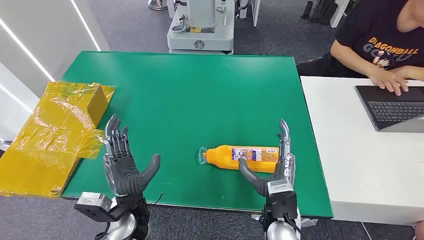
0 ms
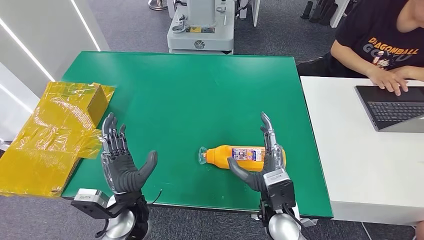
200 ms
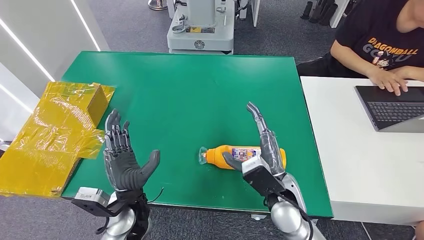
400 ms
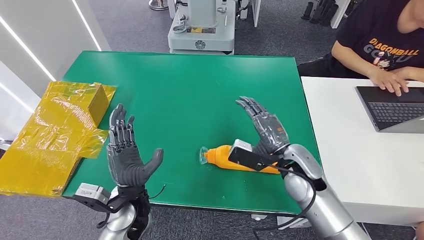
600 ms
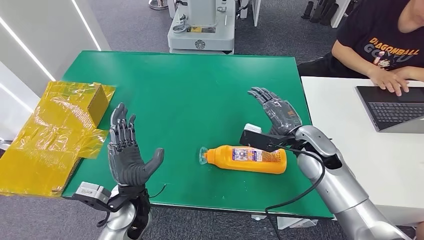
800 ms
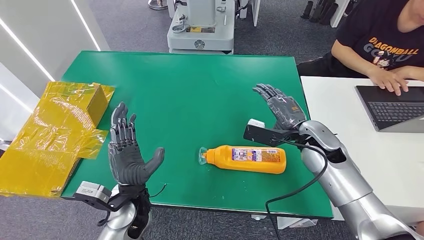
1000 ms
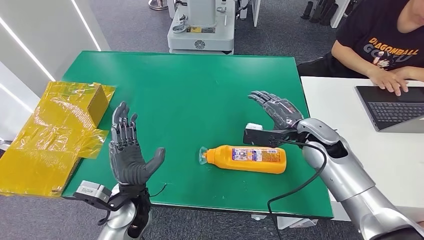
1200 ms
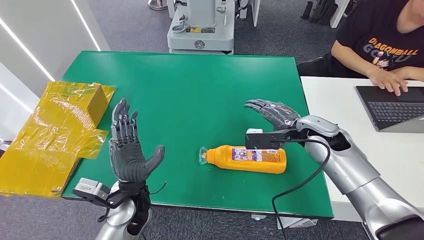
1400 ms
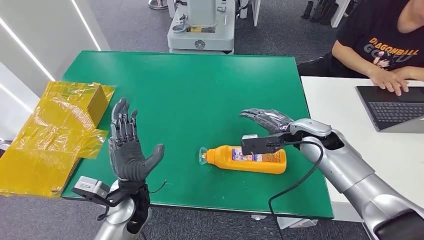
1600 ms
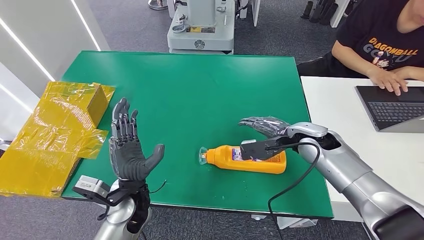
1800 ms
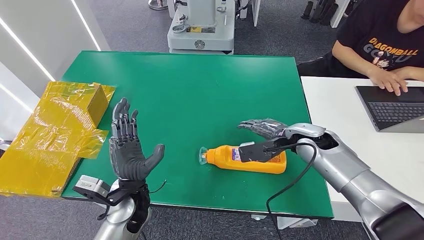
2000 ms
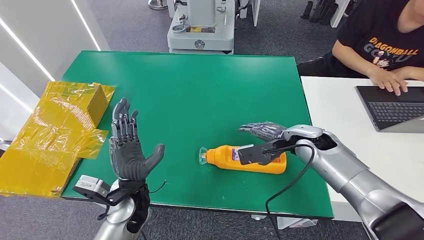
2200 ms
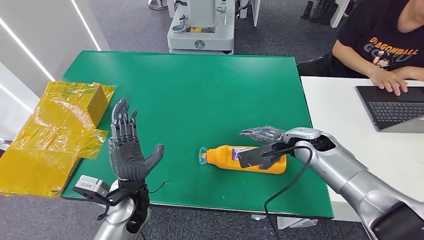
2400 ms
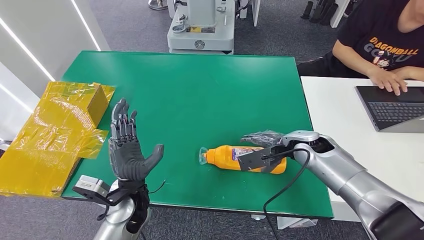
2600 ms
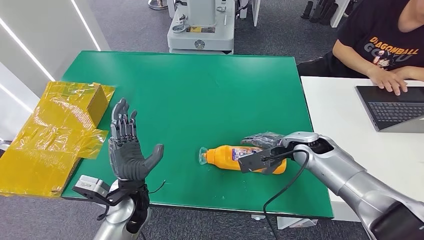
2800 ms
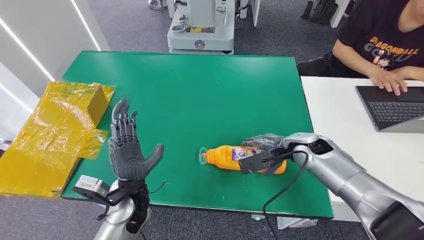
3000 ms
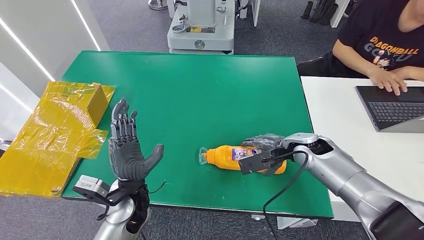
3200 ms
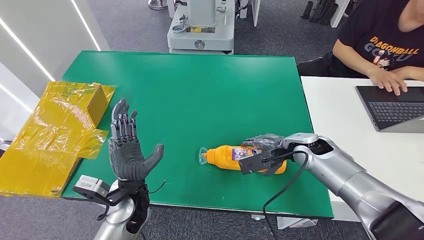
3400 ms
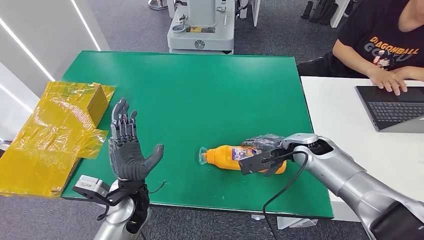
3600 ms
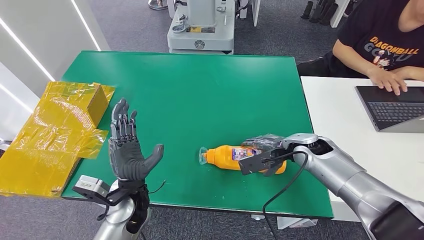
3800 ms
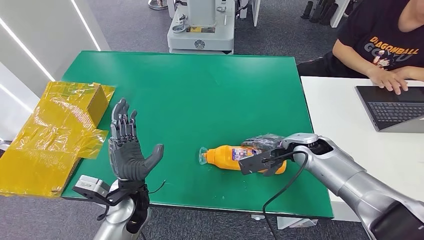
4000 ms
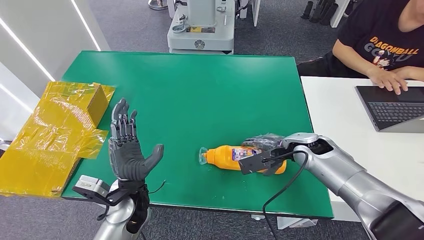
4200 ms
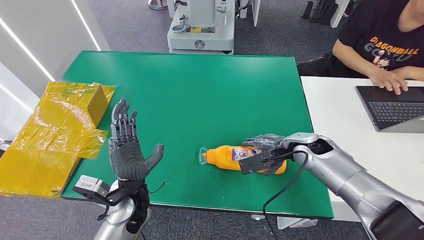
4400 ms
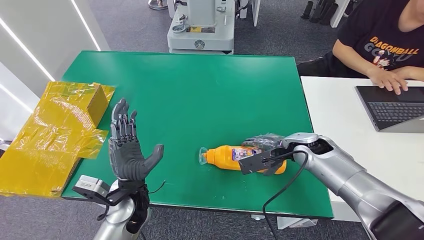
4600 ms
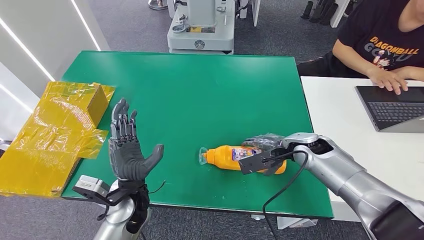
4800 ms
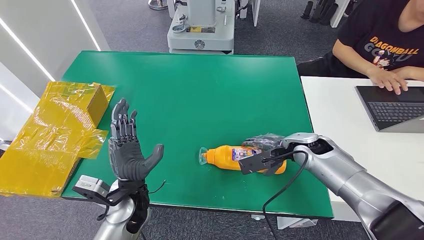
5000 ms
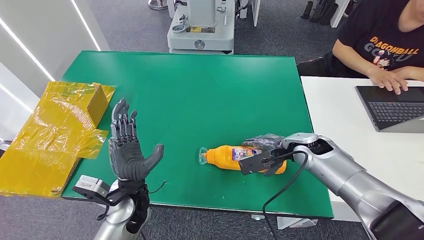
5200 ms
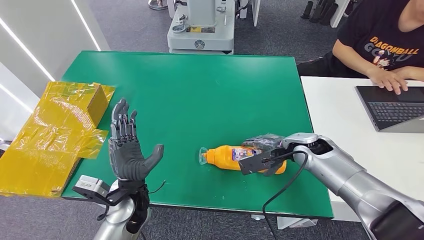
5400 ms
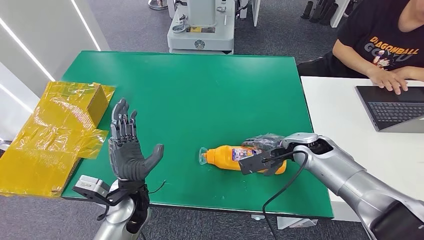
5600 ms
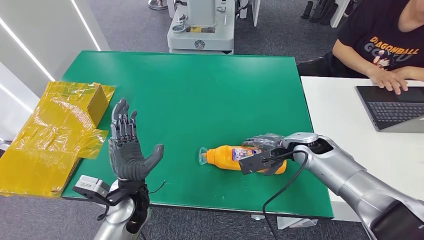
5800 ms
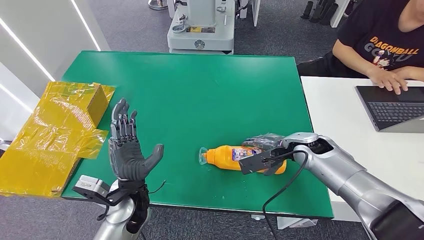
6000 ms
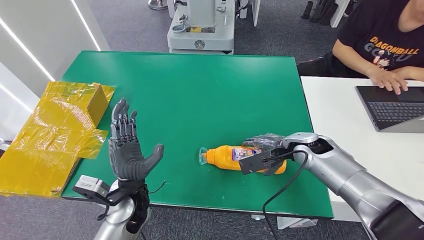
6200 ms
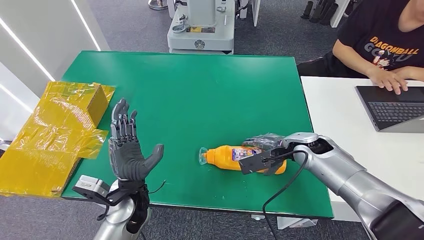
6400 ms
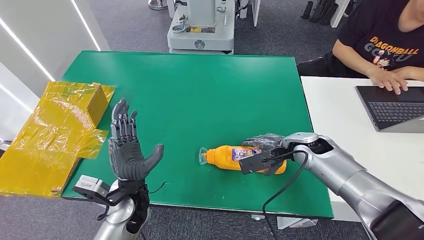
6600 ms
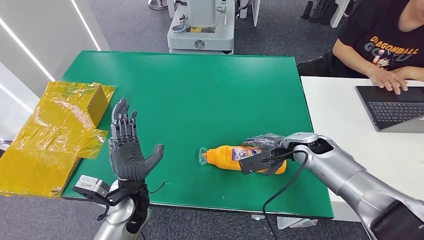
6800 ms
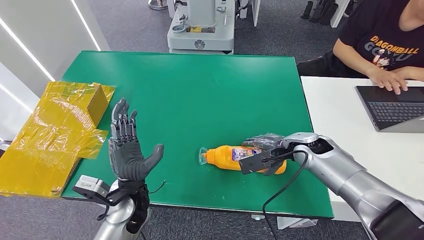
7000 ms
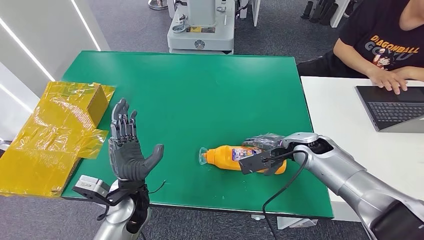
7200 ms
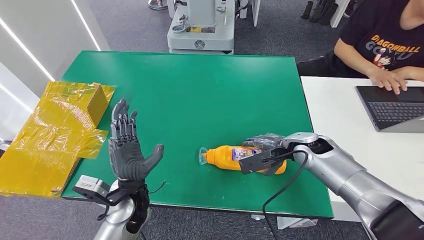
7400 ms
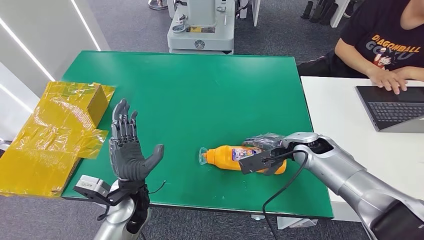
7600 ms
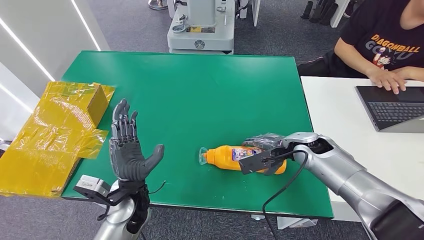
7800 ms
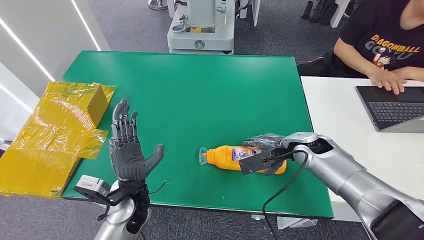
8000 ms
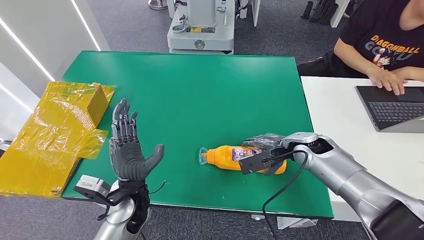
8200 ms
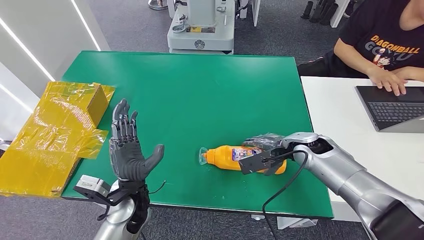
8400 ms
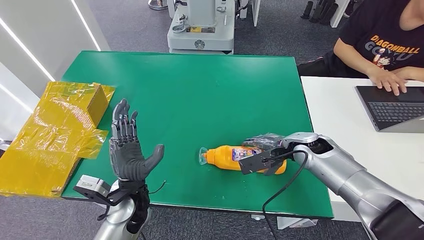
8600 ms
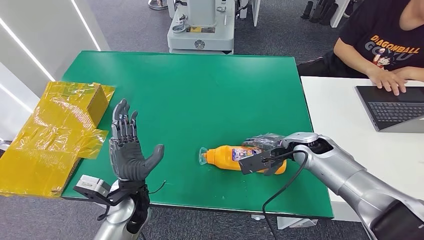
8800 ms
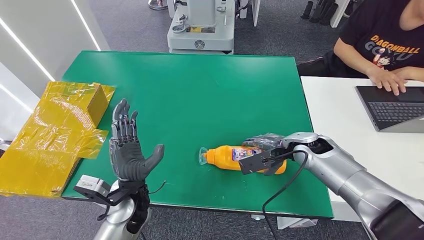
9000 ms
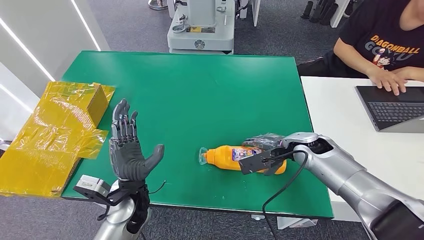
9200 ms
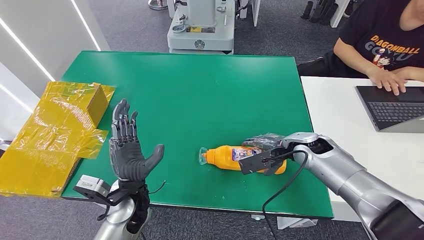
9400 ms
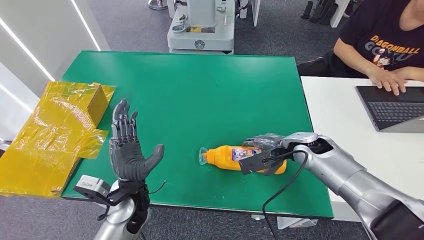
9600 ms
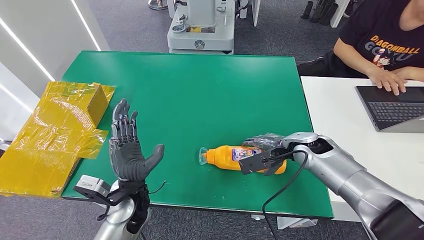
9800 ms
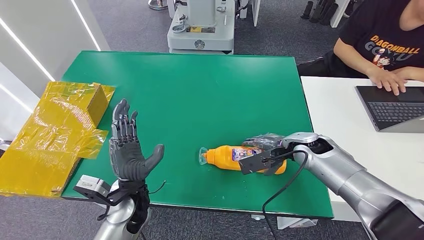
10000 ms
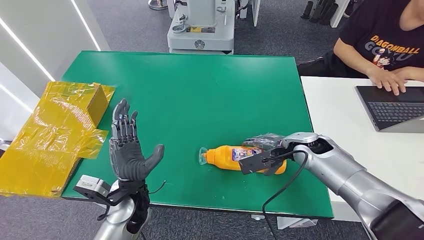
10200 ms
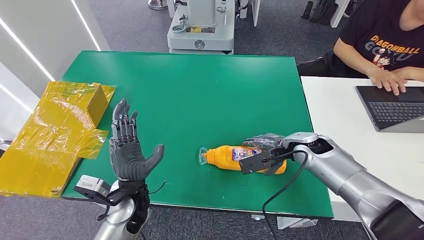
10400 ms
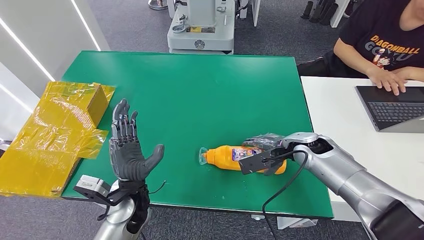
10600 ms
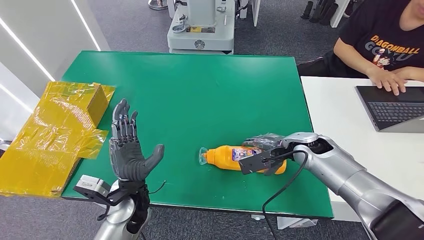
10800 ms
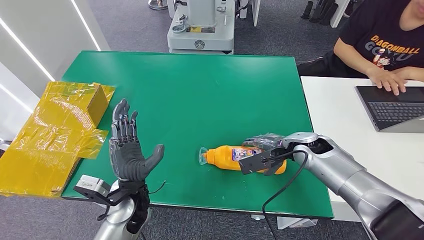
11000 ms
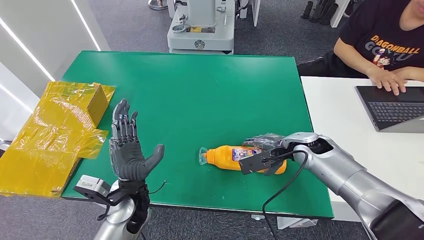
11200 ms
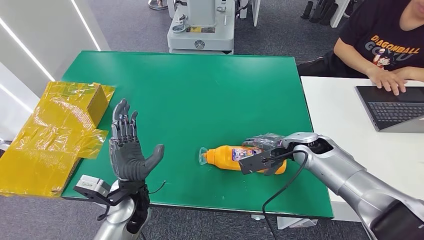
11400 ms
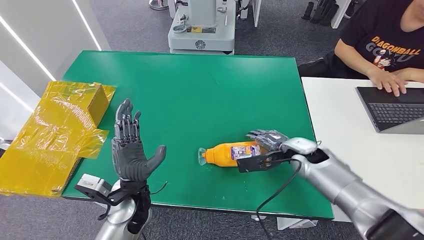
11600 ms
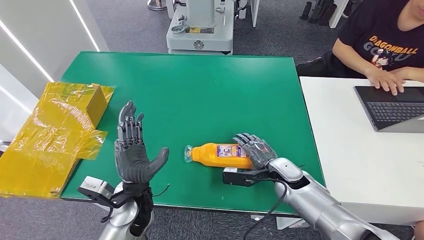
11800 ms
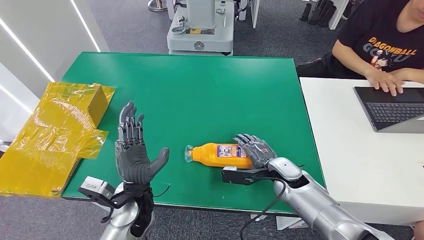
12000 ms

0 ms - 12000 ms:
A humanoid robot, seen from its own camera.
1600 ms - 3000 ms: The hands stay close to where they were, moving slightly.
3000 ms - 10400 ms: Both hands stay put.
10400 ms - 12000 ms: The right hand travels downward and backward by approximately 10 cm.

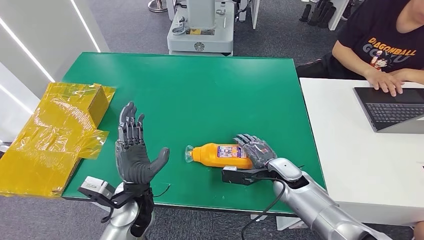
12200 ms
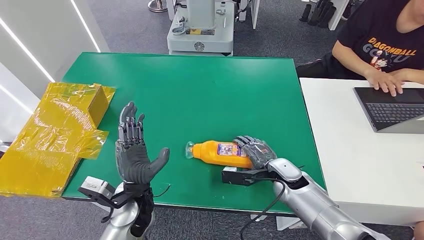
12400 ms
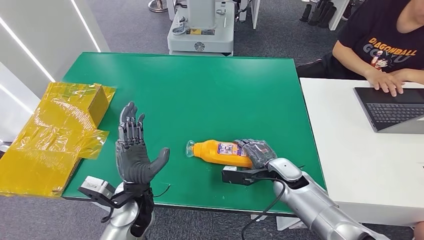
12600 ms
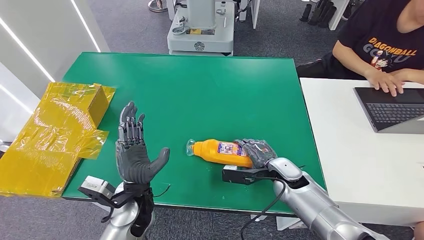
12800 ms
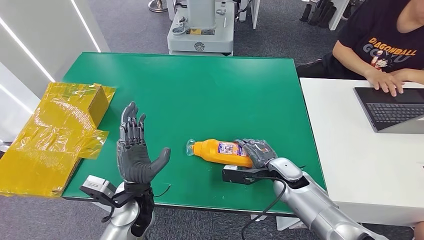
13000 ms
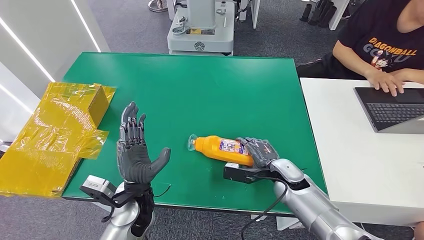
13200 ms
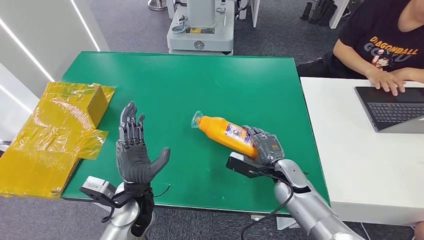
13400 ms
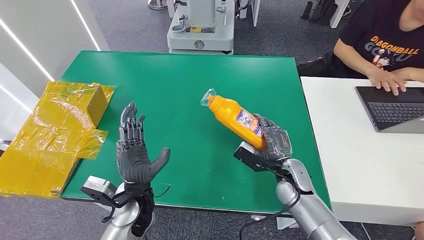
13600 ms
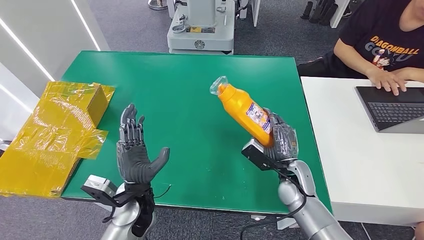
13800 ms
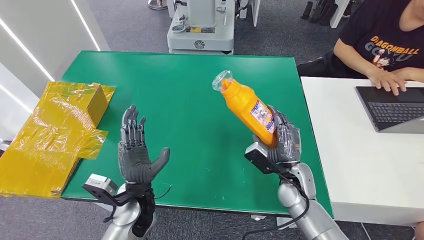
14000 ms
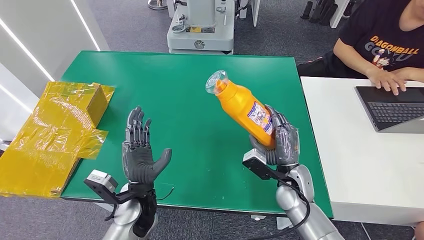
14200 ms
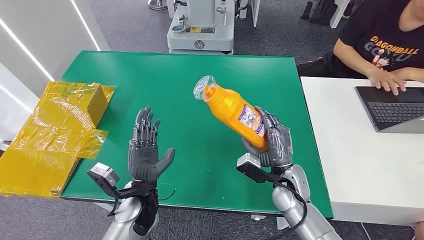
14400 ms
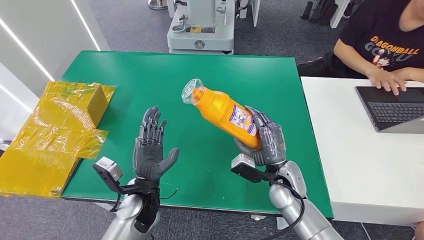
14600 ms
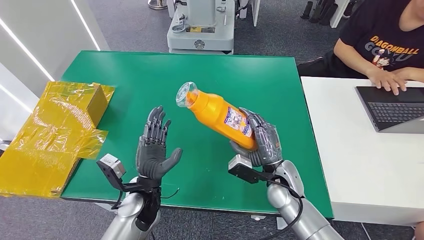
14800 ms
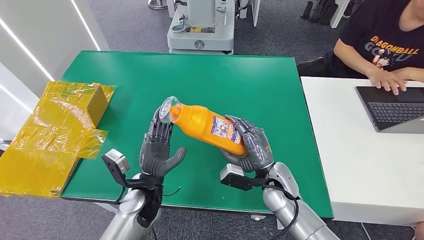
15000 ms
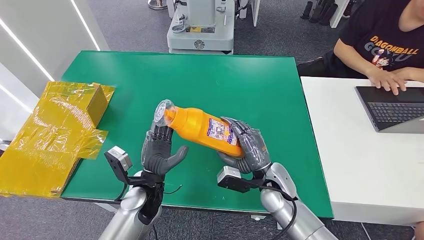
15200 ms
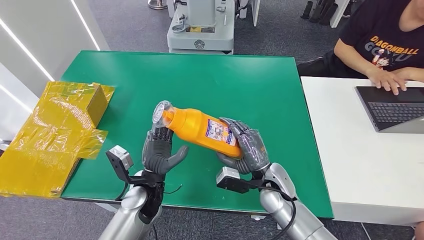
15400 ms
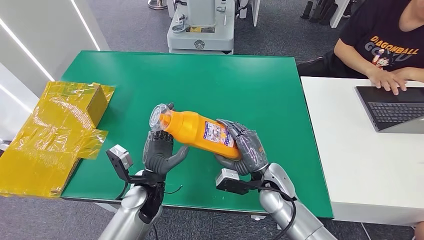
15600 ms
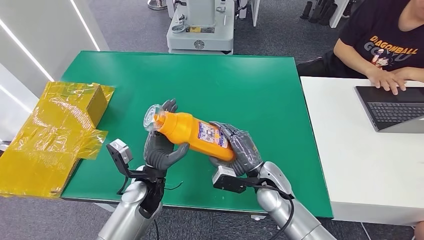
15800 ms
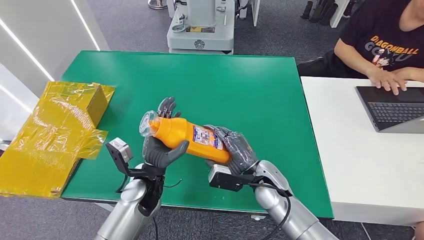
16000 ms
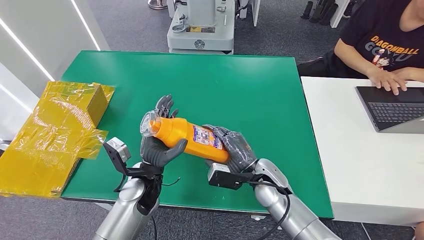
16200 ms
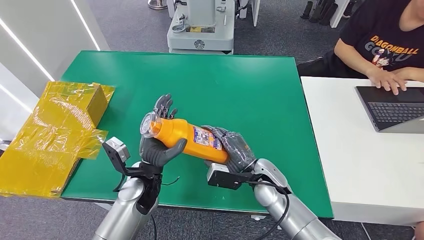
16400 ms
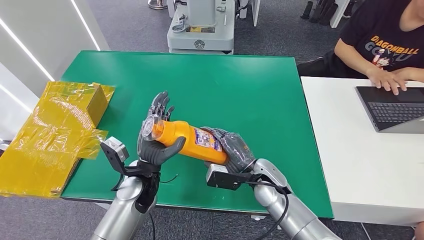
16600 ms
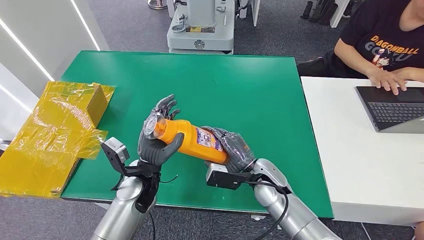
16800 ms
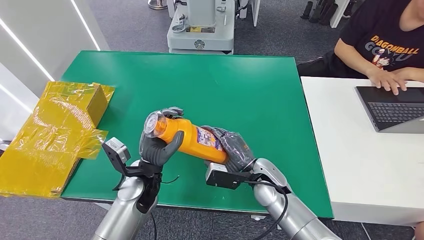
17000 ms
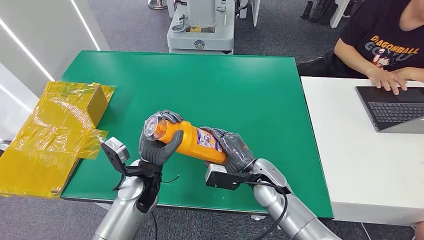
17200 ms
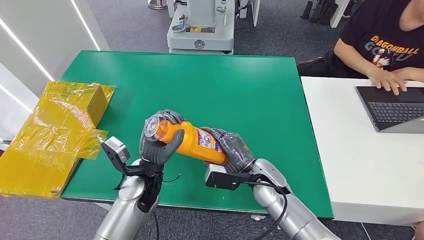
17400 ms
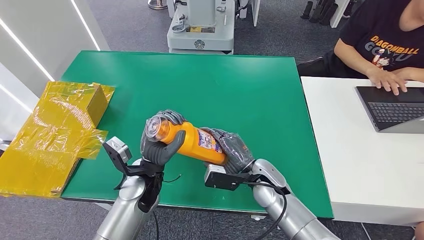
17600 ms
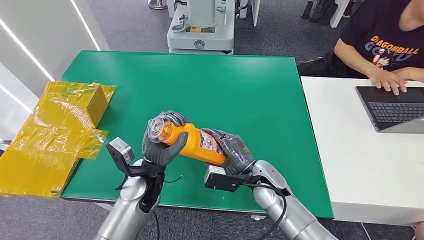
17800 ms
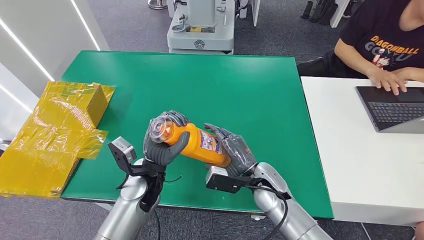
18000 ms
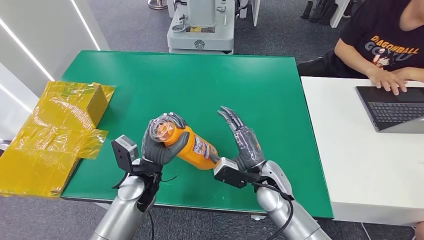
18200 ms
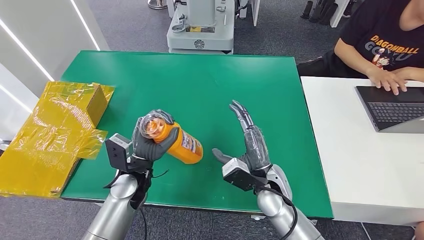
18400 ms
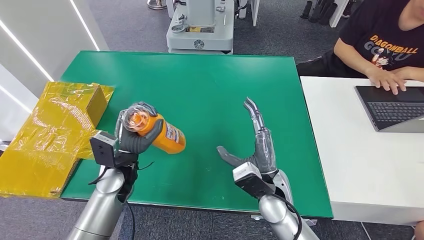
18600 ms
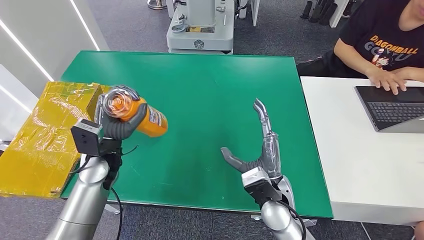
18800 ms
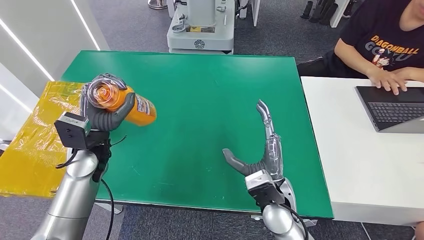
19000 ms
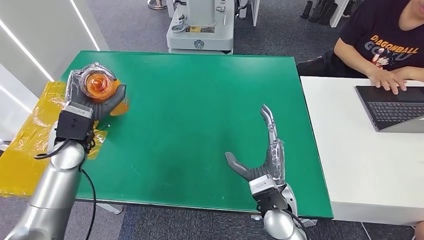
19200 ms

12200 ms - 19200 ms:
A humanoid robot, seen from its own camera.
13600 ms - 15000 ms: The right hand shifts by about 5 cm.
15000 ms - 16400 ms: There are only small adjustments of the hands.
16400 ms - 17800 ms: There are only small adjustments of the hands.
17800 ms - 19200 ms: The right hand goes some 5 cm backward. Meanwhile the left hand moves to the left, upward and forward, some 20 cm.
